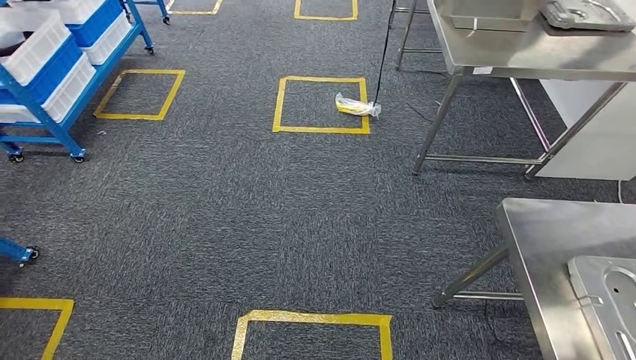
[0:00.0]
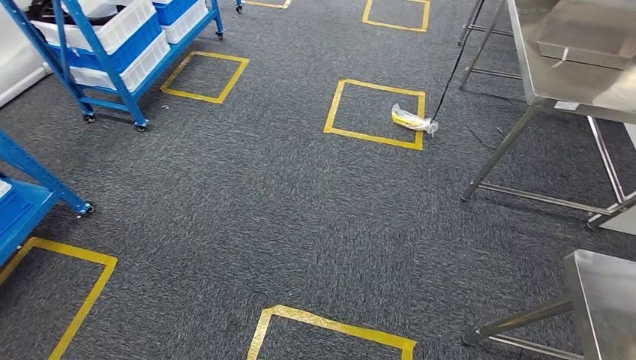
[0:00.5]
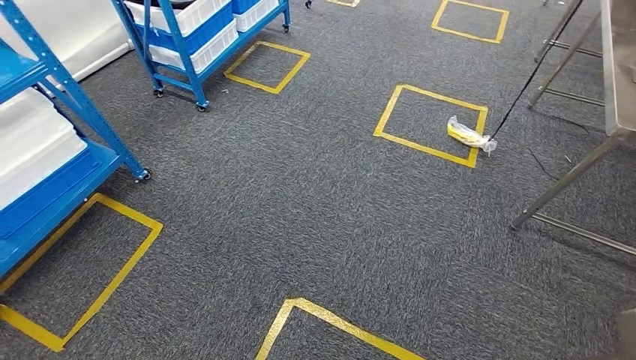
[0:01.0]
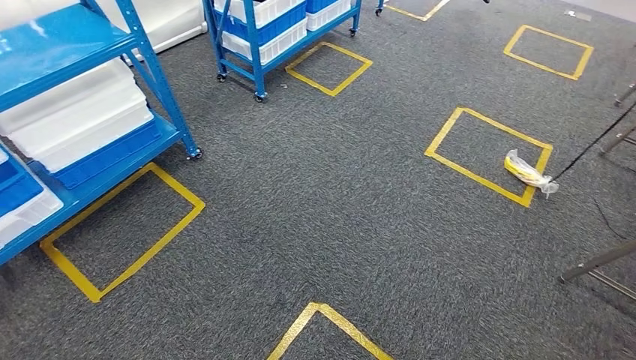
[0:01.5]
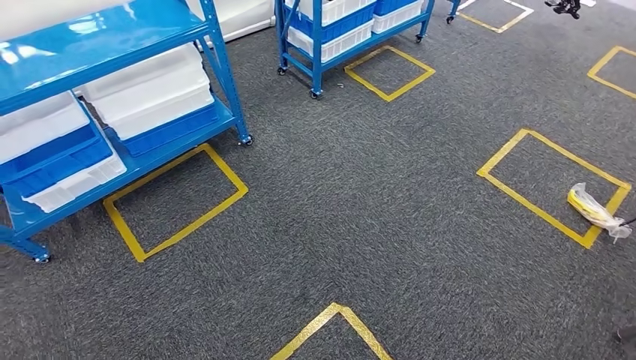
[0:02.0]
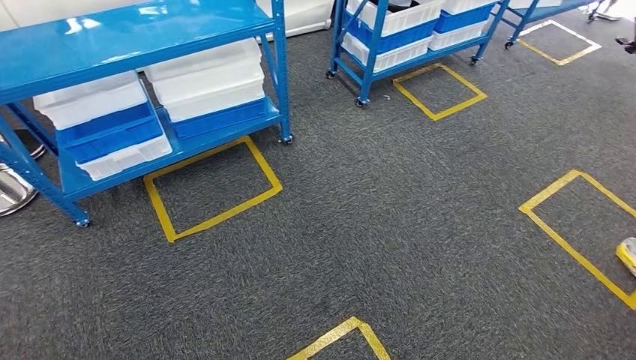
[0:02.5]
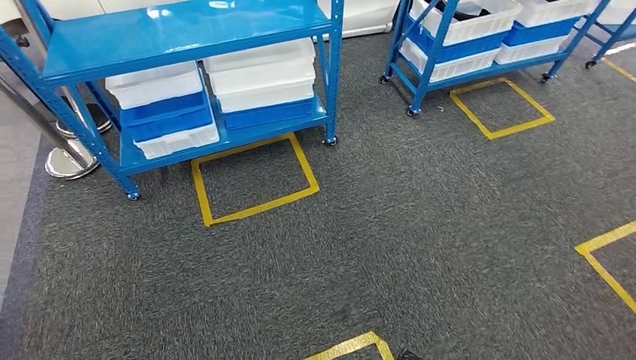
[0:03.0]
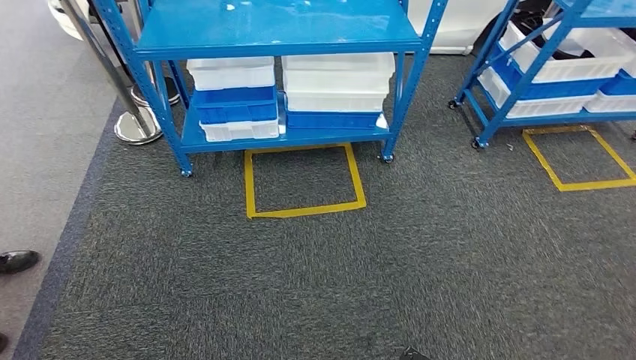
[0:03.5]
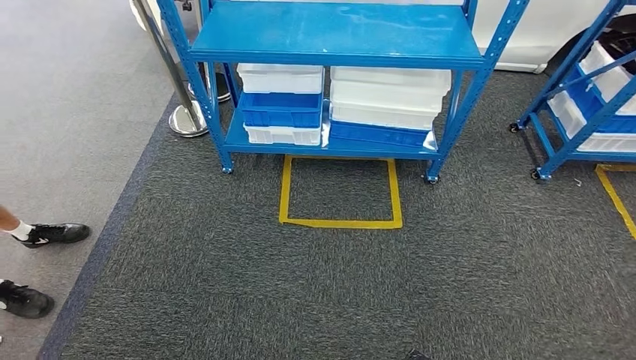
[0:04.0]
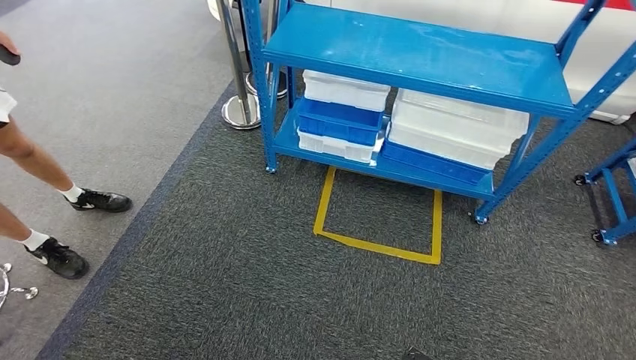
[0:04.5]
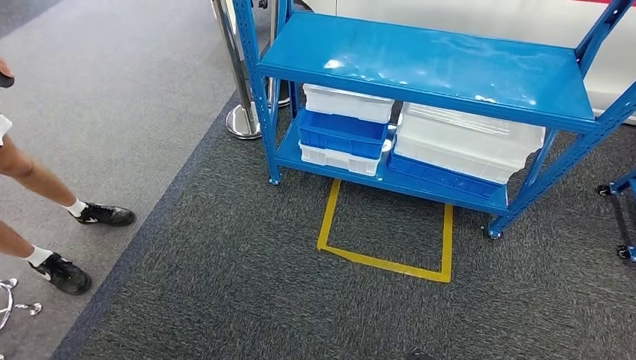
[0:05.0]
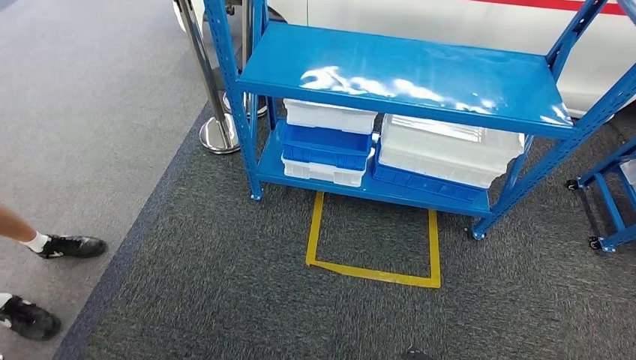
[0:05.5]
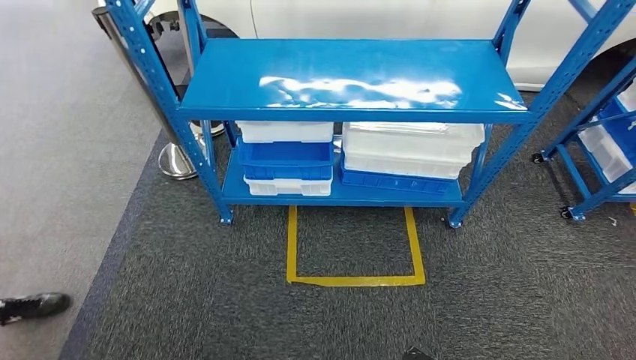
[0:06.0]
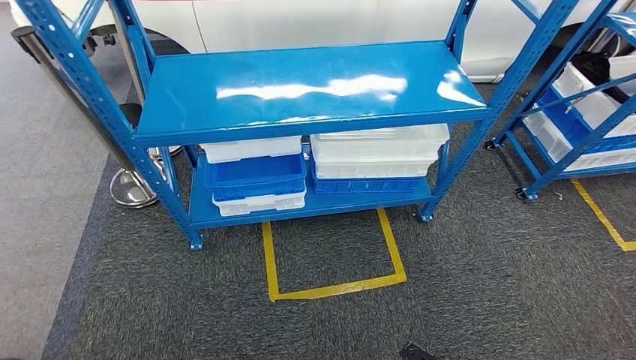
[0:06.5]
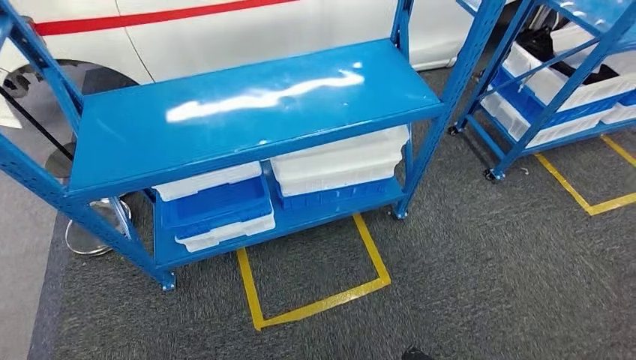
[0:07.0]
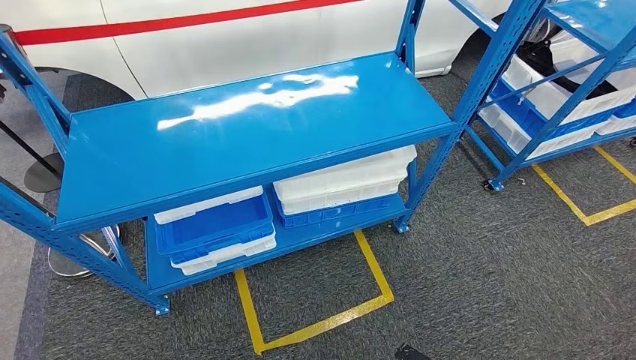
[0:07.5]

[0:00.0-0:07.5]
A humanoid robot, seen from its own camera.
Step, 0:00.0 to 0:07.5: Return to the initial position at the shelf.
